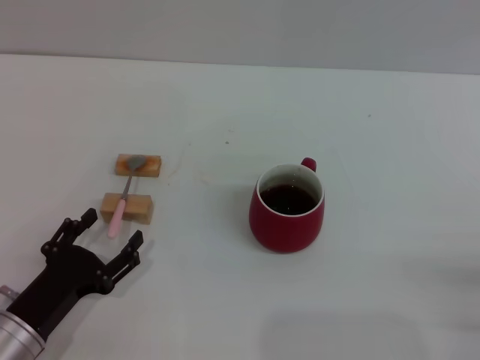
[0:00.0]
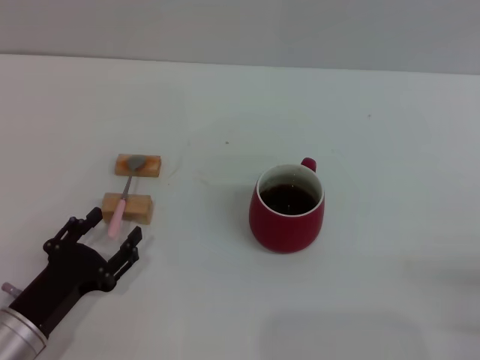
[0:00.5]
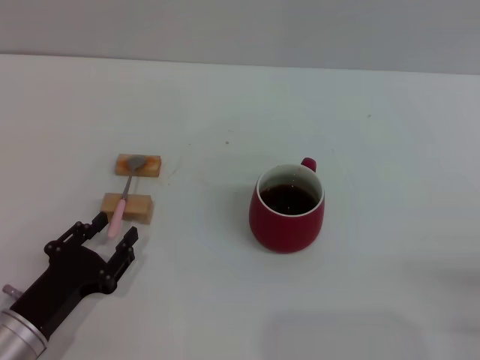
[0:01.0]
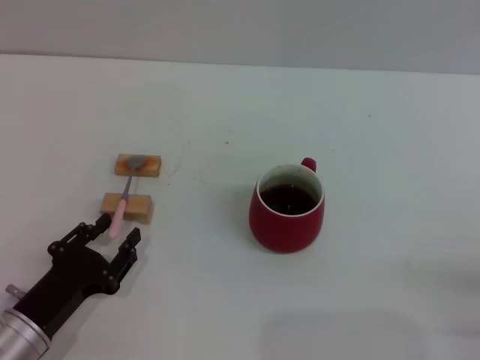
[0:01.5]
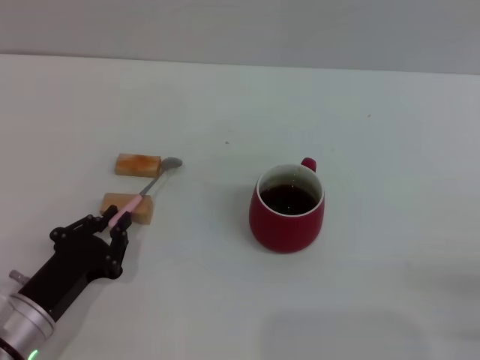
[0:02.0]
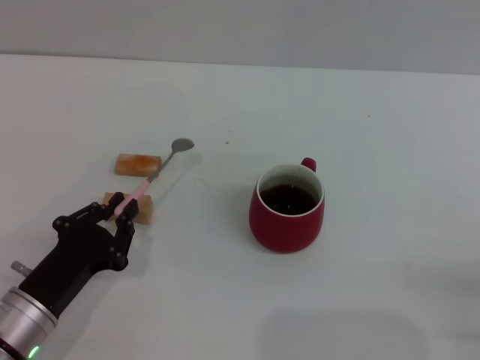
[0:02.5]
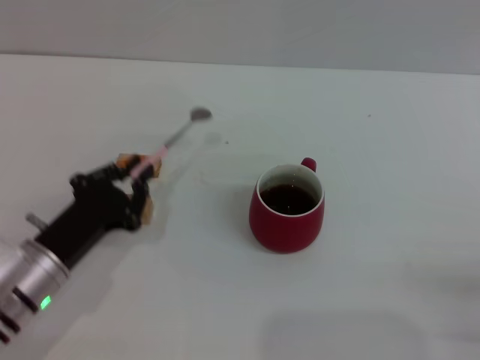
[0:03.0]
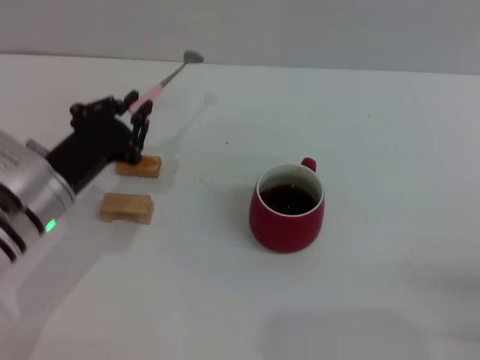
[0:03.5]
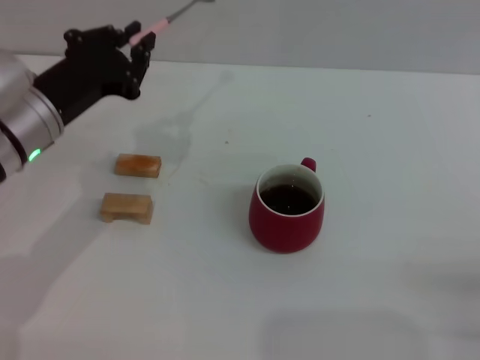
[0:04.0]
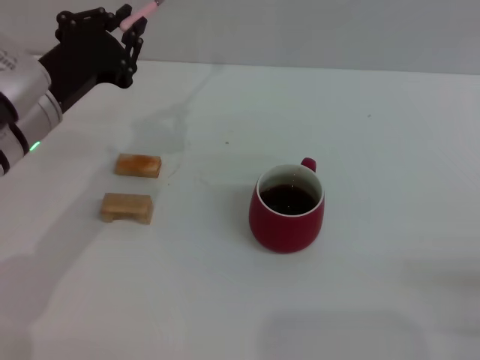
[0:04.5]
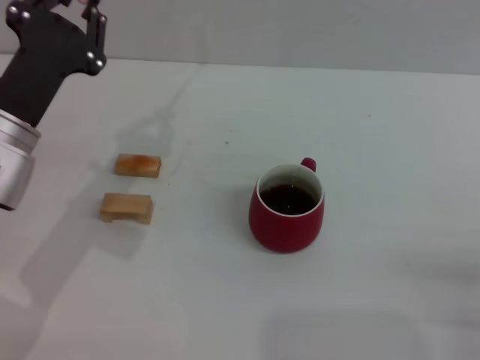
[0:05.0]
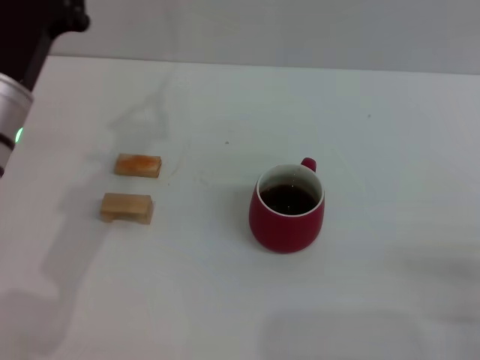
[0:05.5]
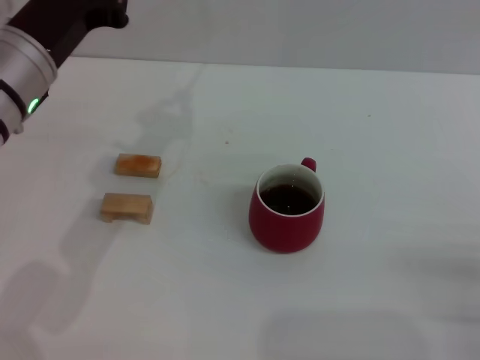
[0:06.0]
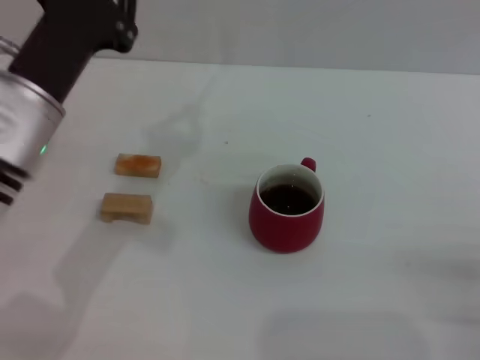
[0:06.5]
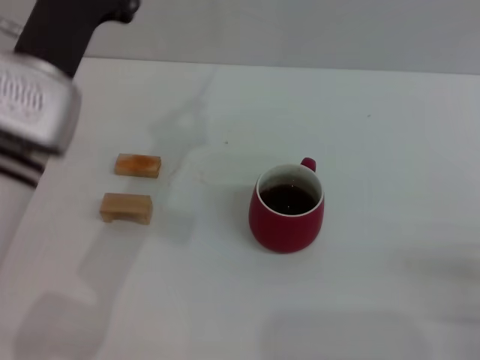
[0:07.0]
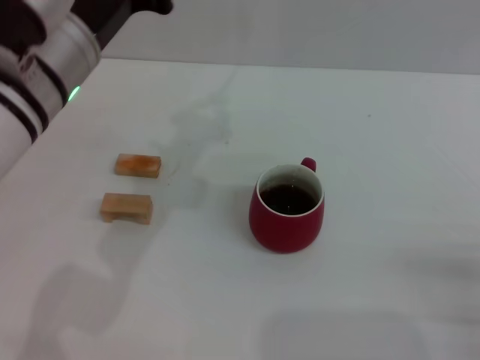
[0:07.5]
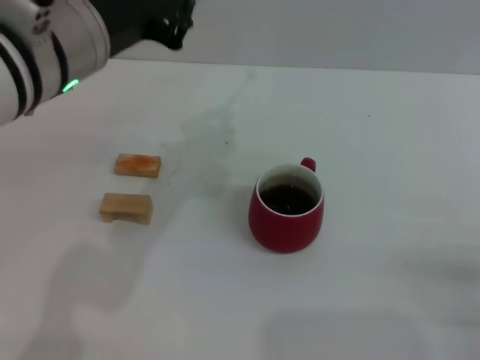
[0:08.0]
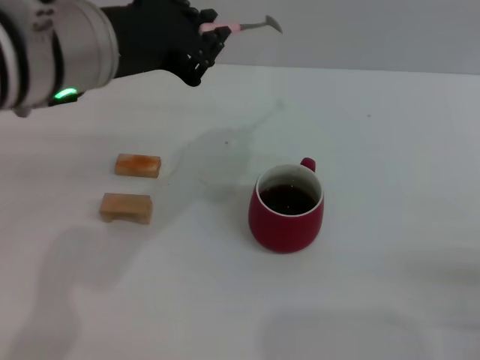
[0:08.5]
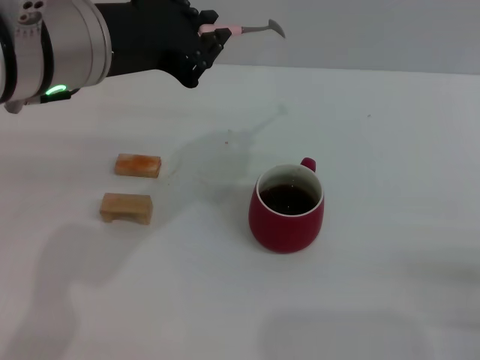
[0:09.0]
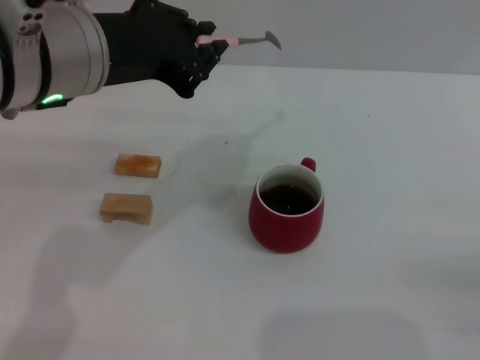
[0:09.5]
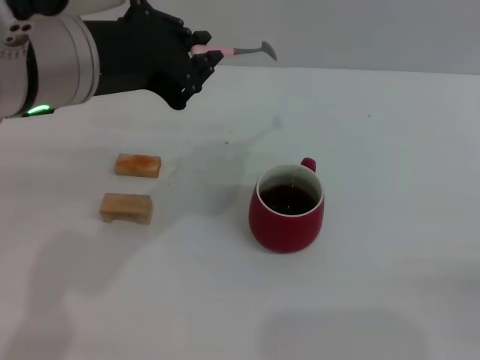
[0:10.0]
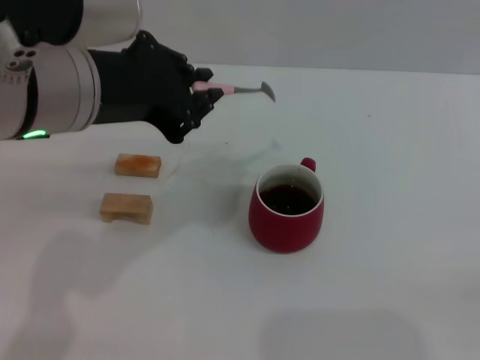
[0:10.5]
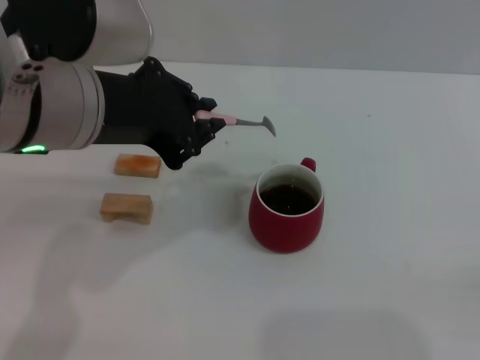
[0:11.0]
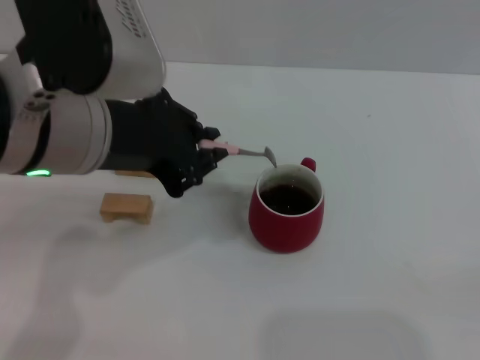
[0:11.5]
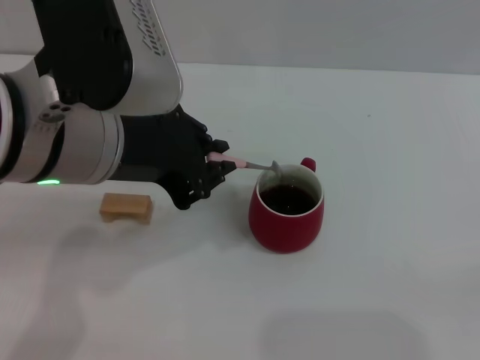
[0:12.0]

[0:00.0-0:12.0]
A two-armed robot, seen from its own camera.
Task of the whole recording: Move the red cup to the center, lift the pink spoon, stir it three times in the cup, and put the spoon into the cup.
Step, 0:00.0 to 0:10.5: Pick up the spoon with the left gripper.
0:00.0 to 0:02.0: The left gripper closes.
0:02.0 to 0:04.0: The left gripper goes roughly 20 cm upward and forward.
0:04.0 to 0:06.0: The left gripper is displaced upward by some 5 cm.
0:06.0 to 0:08.0: The left gripper travels upward and to the right by approximately 10 cm.
0:08.0 to 0:10.0: The grippers make only small movements.

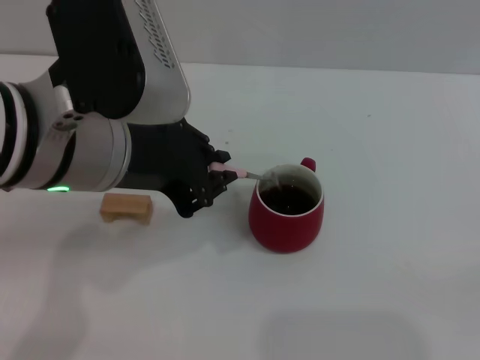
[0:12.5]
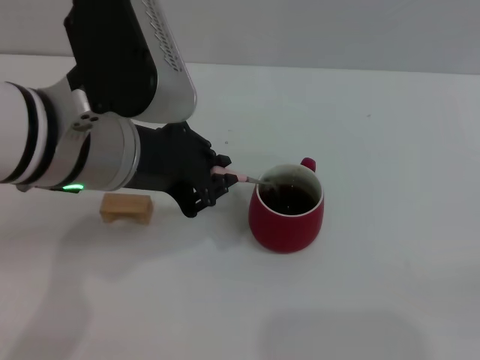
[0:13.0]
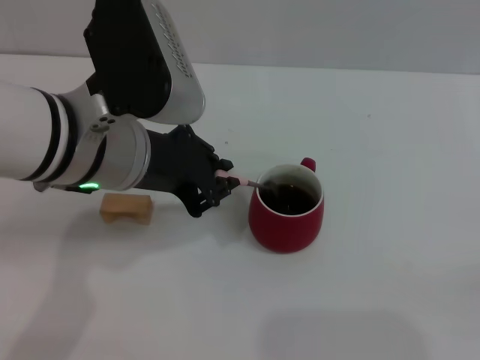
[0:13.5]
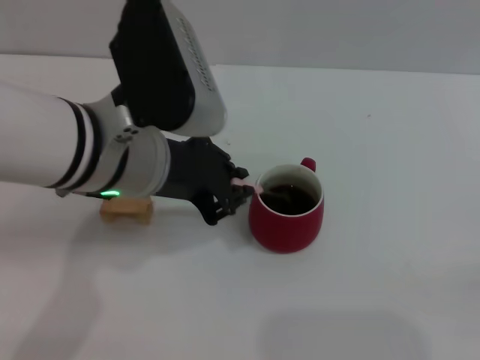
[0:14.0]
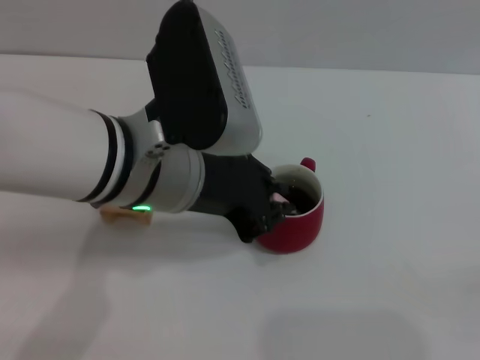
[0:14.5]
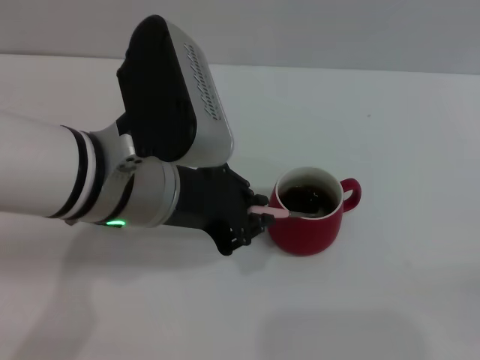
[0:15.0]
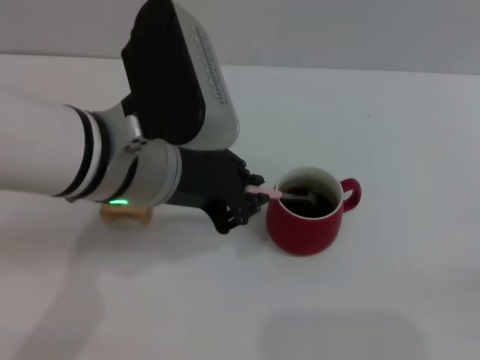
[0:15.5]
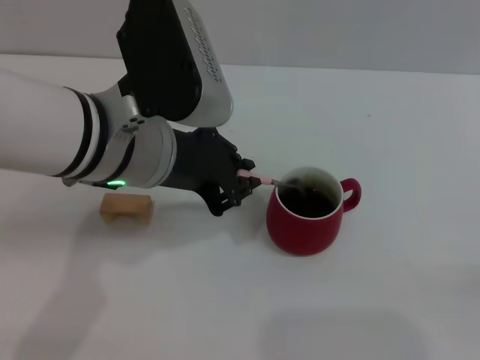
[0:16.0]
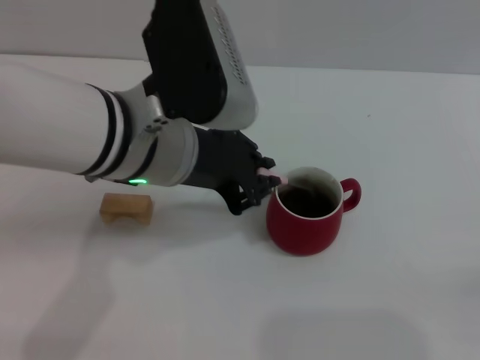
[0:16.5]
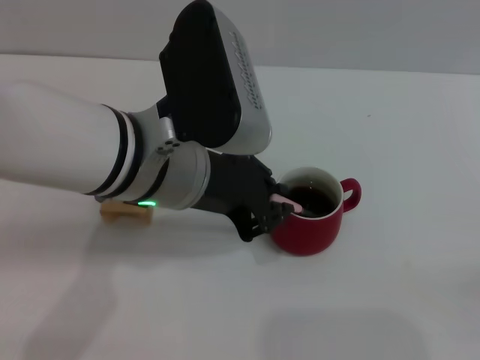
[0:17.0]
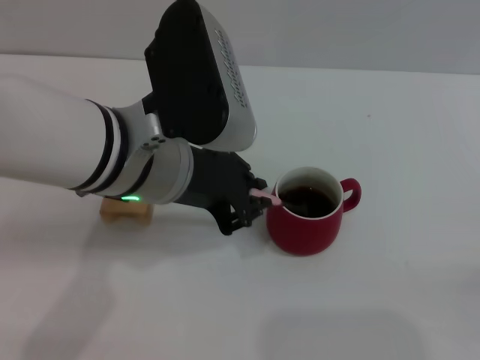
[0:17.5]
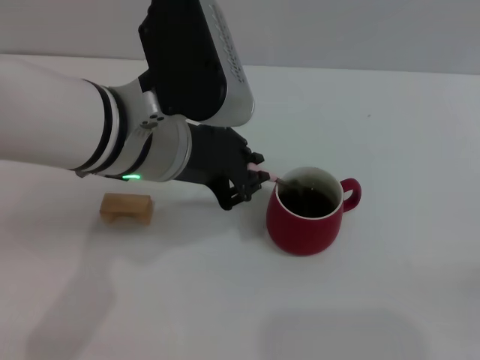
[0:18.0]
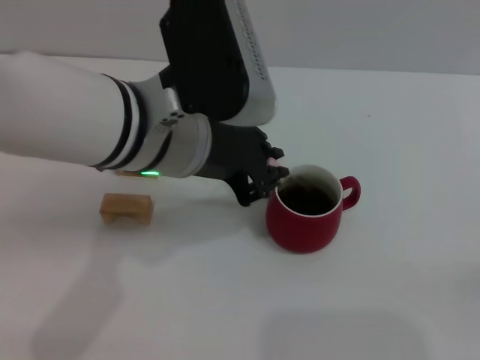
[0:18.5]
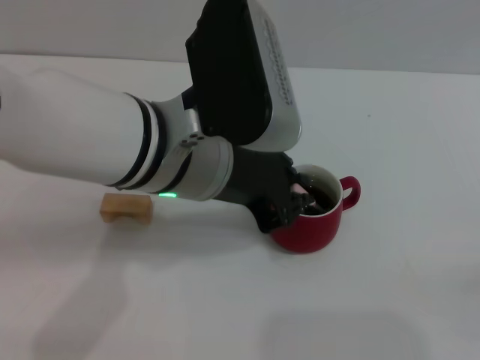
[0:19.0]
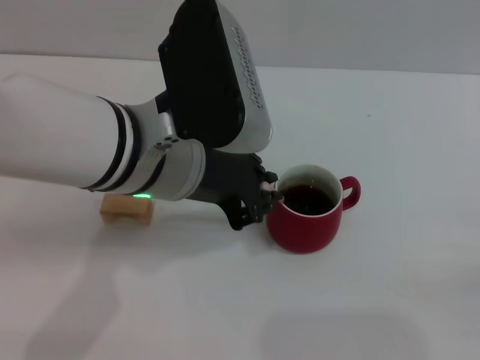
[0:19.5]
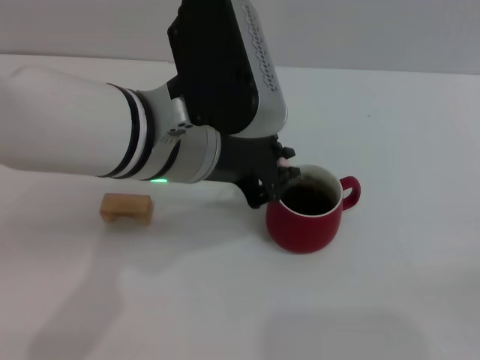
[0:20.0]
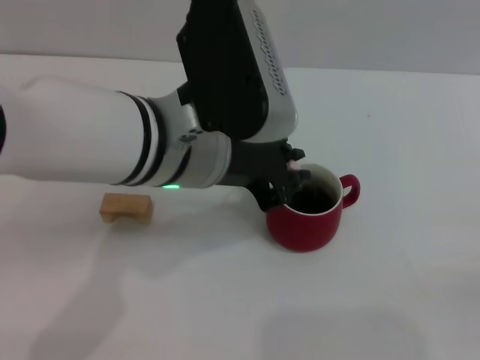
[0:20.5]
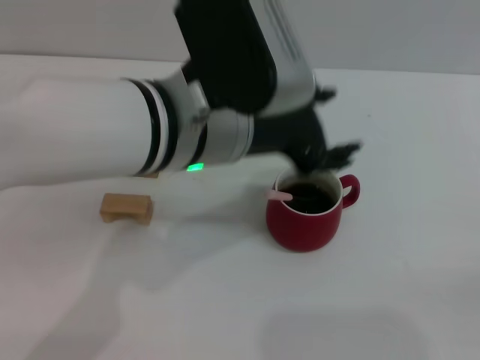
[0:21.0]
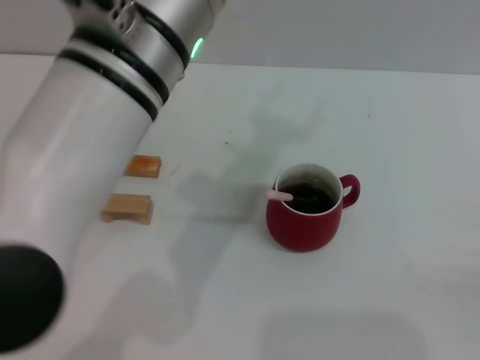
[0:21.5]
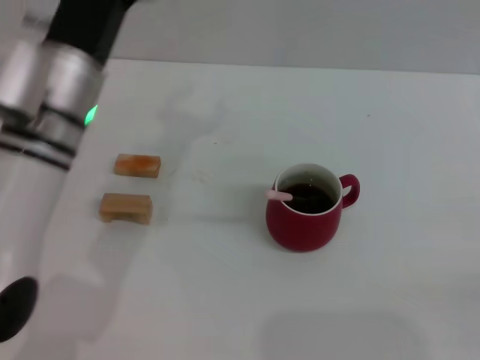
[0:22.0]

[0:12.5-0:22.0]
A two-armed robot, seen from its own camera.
Task of the whole recording: Move the red cup to the center, lift the pink spoon, stir it three times in the cup, and put the spoon into the cup.
Step, 0:12.5 to 0:20.5: Stir the coffee in the cup with the left gripper.
0:12.5 to 0:14.5: The left gripper moves some 5 cm.
0:14.5 to 0:20.0: The grippers move only a little.
0:20.0 to 0:22.0: The left gripper travels to the left and downward by roughly 10 cm, and opens its fingers.

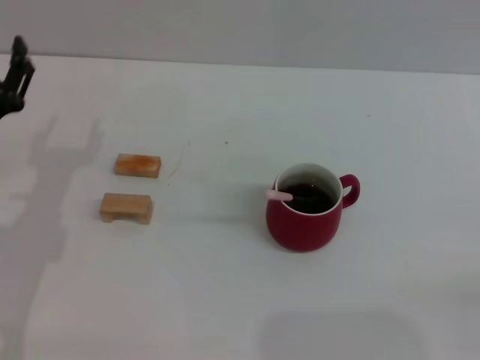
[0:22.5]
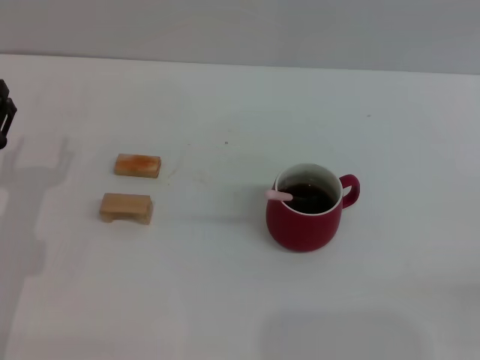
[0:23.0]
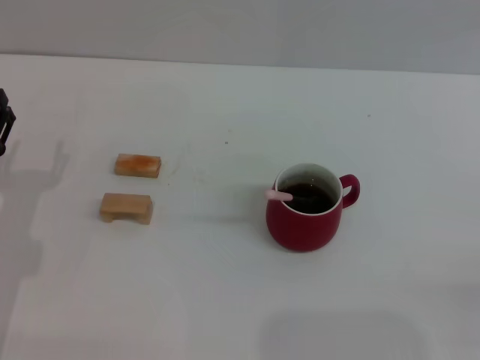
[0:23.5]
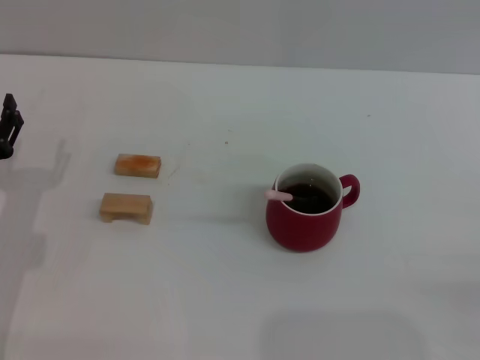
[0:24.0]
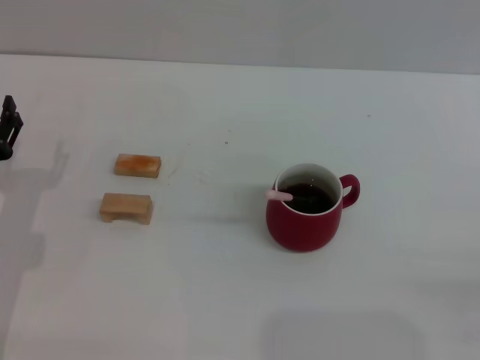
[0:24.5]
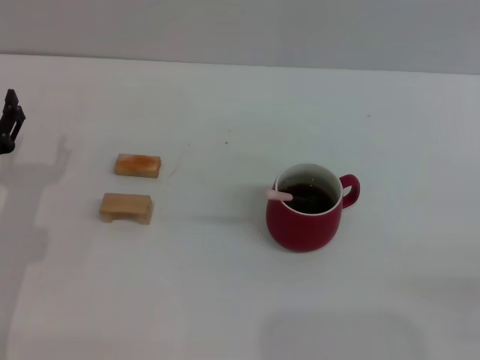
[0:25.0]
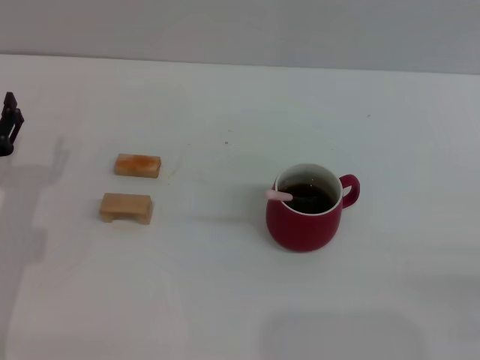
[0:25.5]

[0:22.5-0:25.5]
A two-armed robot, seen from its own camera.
Task of the whole recording: Move the red cup to the center, lift the pink spoon, stir it three times in the cup, and put the spoon into the cup.
0:24.0 to 0:25.5: Both grippers stay put.

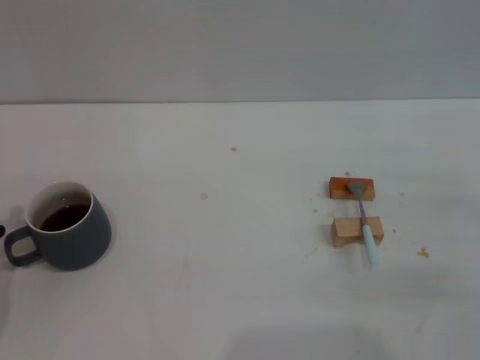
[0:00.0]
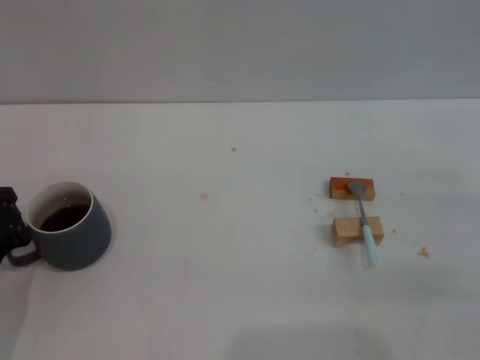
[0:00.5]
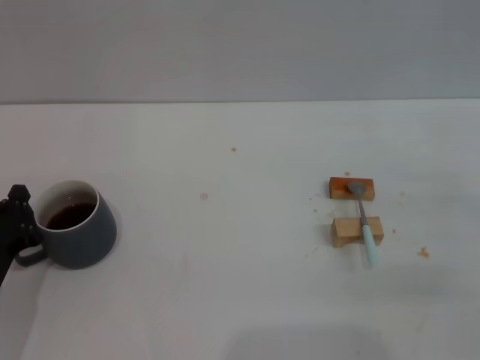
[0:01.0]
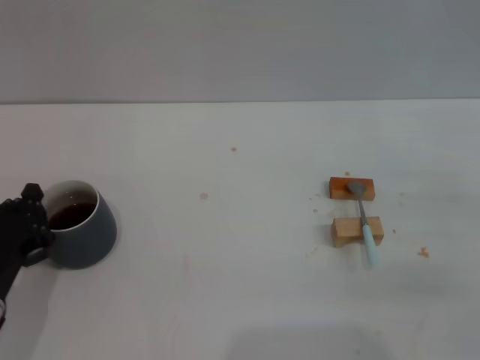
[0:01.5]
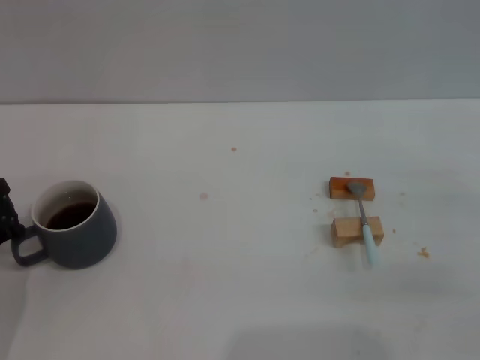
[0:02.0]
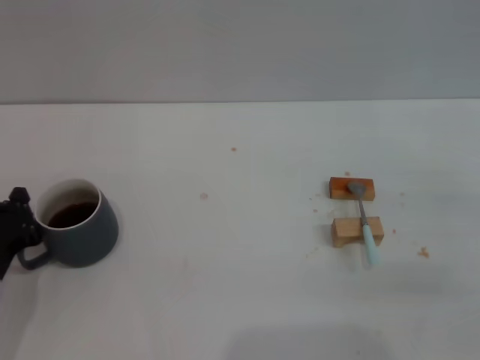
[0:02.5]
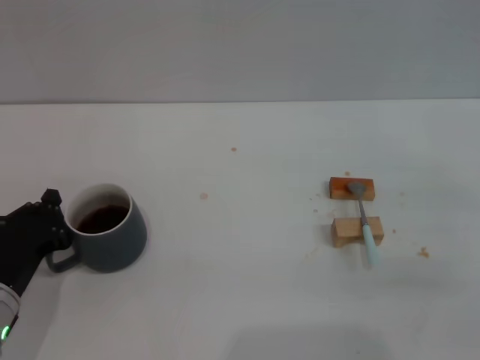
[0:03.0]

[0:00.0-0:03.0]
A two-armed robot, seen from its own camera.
Task of the whole recording: Move the grey cup to the center, lift the blue spoon, stir it three times in the cup, and put the spoon into the cup.
0:00.0 to 0:03.0: The grippers move only a little.
